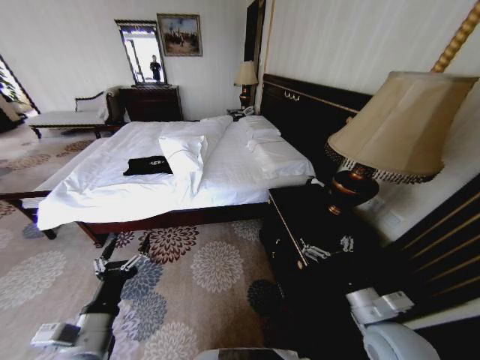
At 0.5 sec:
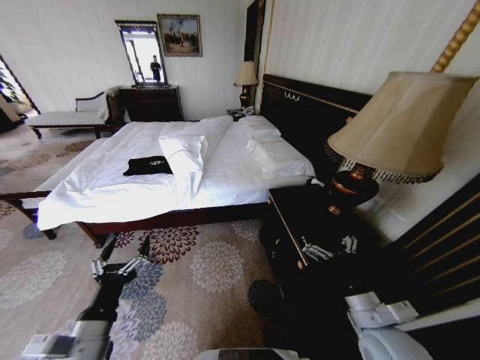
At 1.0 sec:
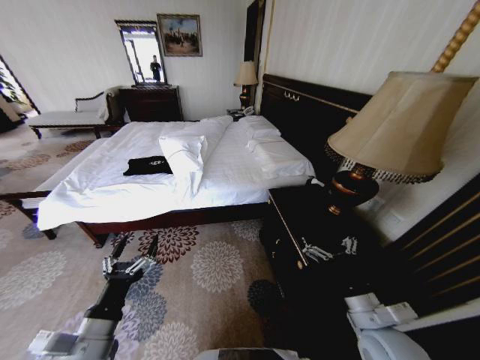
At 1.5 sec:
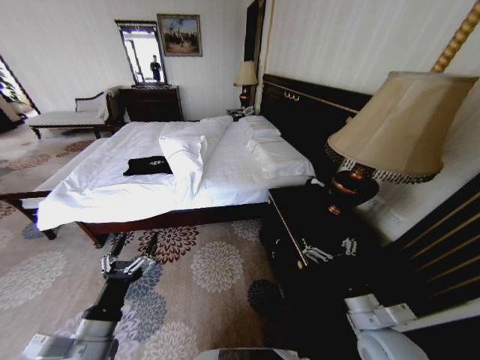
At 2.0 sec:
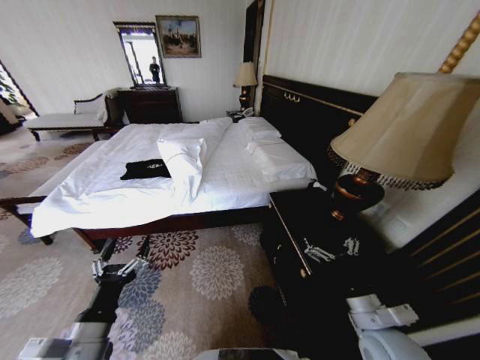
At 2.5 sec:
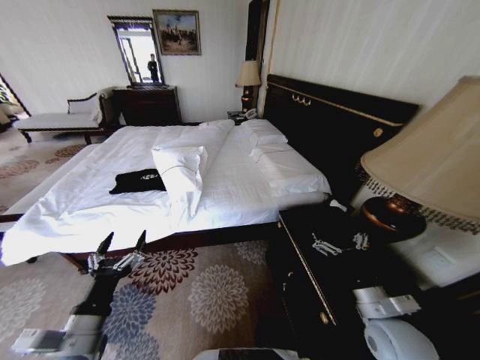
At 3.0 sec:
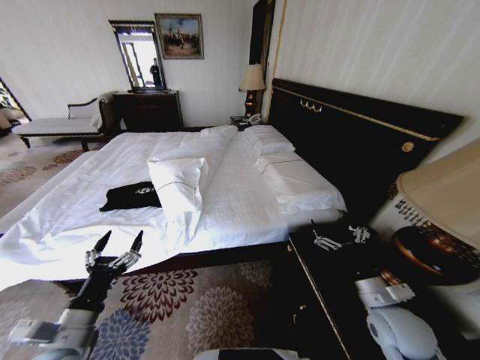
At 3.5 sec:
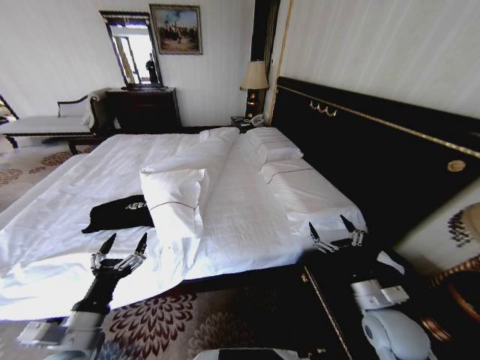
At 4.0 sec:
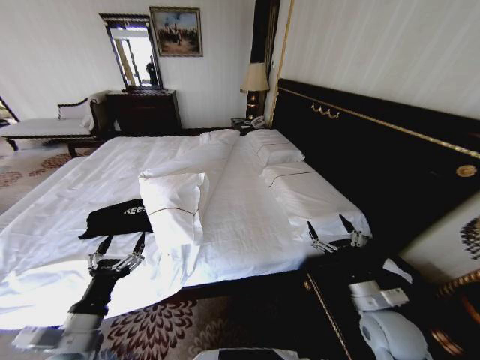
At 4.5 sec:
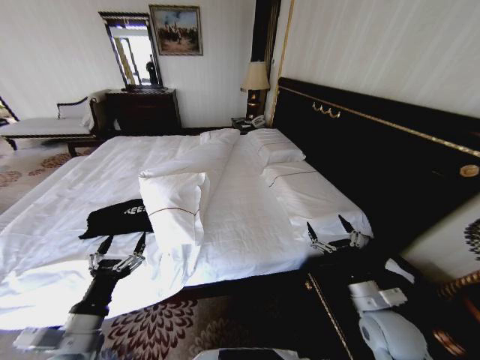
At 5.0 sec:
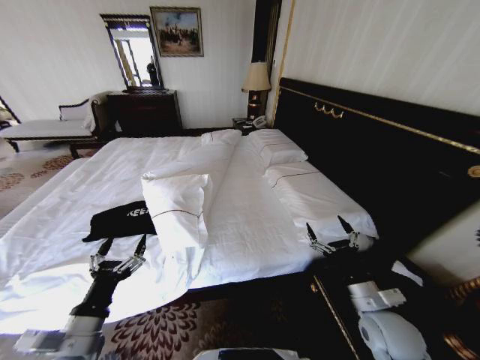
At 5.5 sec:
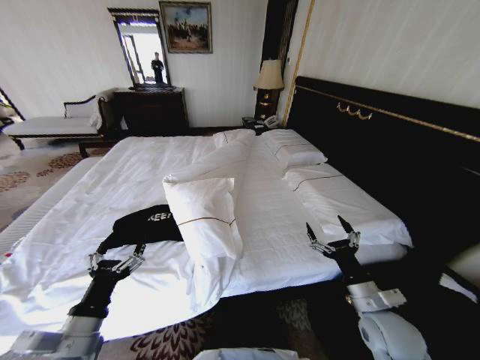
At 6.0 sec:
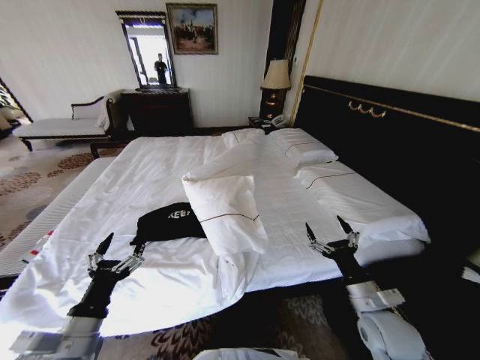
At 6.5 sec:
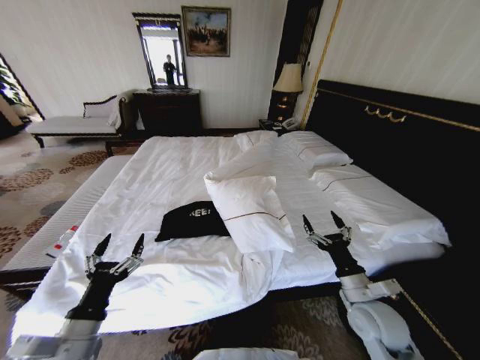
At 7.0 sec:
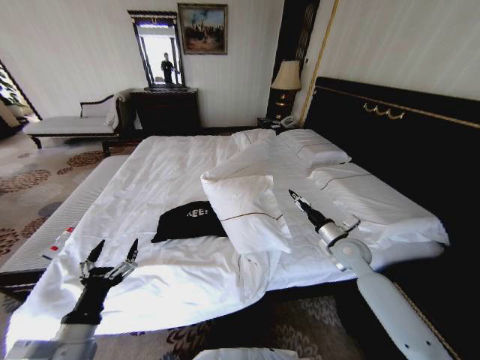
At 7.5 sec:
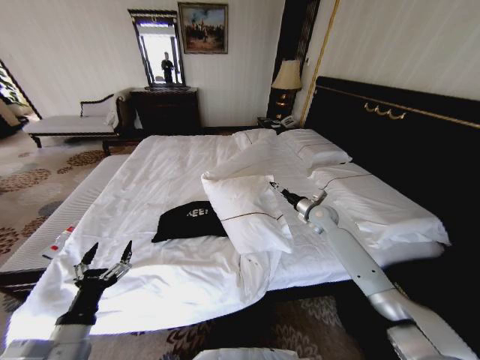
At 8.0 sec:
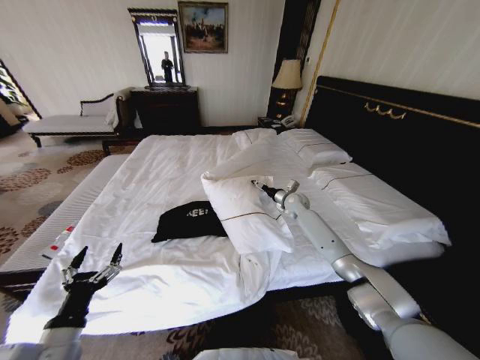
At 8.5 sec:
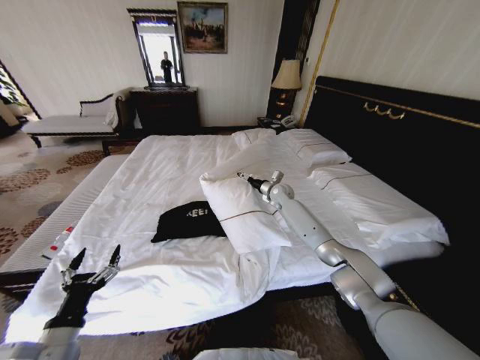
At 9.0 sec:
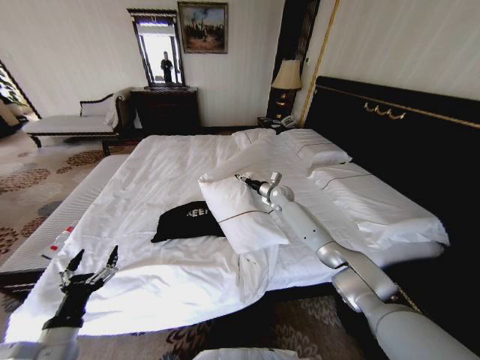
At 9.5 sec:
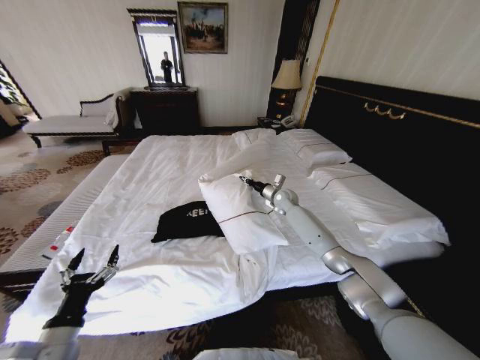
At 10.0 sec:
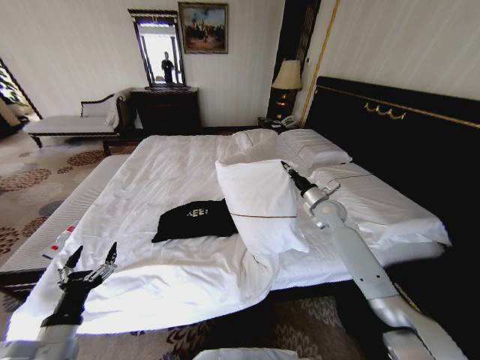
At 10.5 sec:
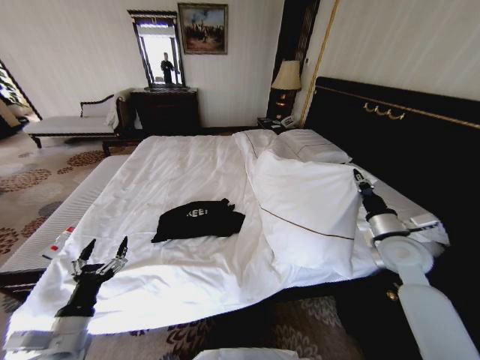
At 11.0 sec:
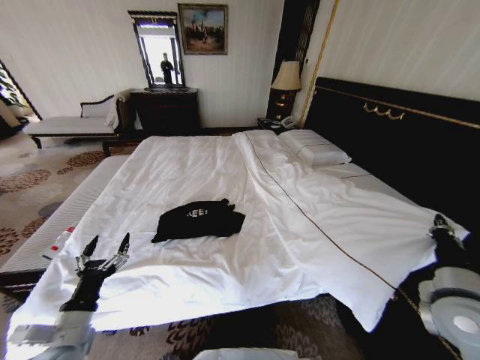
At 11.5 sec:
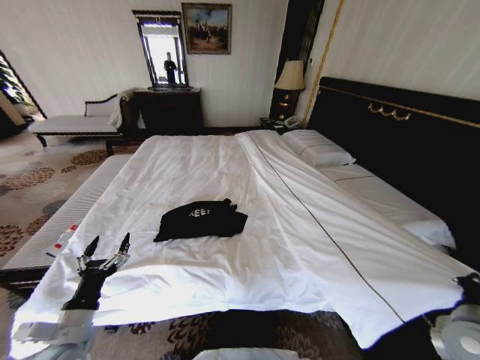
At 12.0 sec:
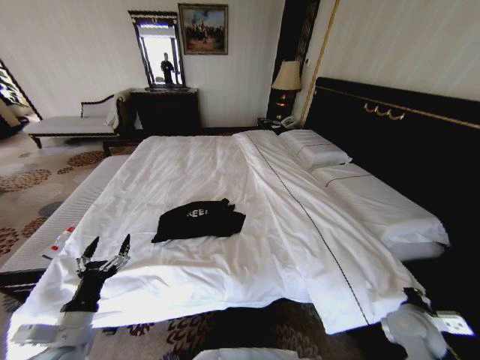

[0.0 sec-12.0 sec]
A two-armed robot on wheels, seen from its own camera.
Task of the whole recording: Fold the clothes on the bed.
2.0 sec to 4.0 sec: The right gripper ends up approximately 5 cm from where it was.
6.0 sec to 8.0 sec: The right gripper goes some 40 cm forward; the left gripper ends up about 5 cm from where it was.
8.0 sec to 10.0 sec: The right gripper travels backward and to the right by roughly 10 cm, and closes up.
10.0 sec to 12.0 sec: The right gripper travels backward and to the right by roughly 35 cm.

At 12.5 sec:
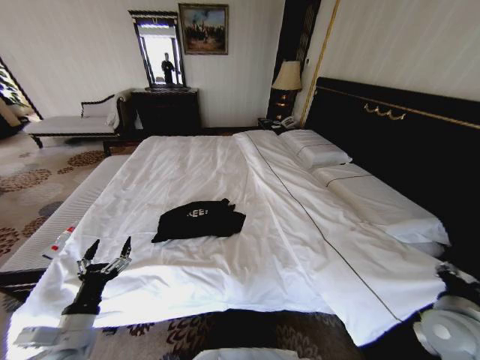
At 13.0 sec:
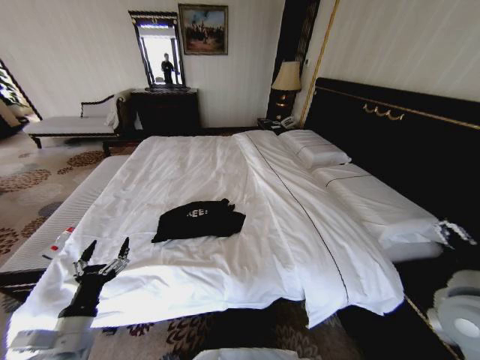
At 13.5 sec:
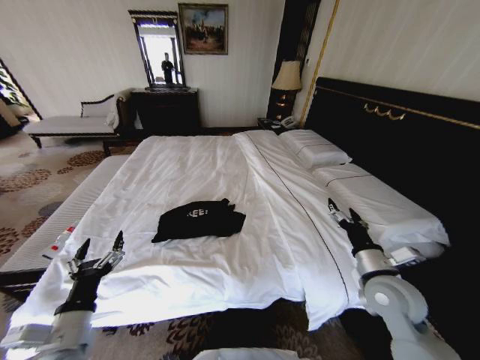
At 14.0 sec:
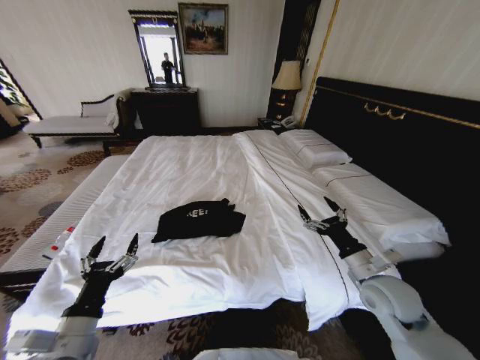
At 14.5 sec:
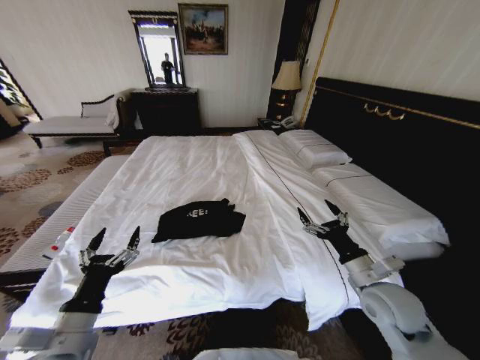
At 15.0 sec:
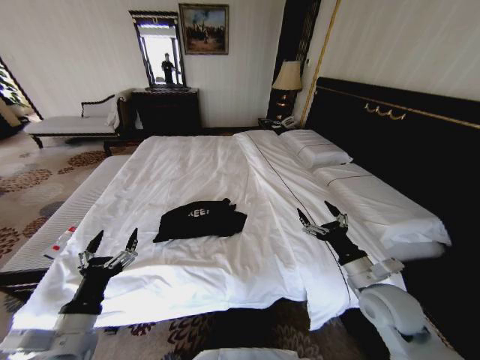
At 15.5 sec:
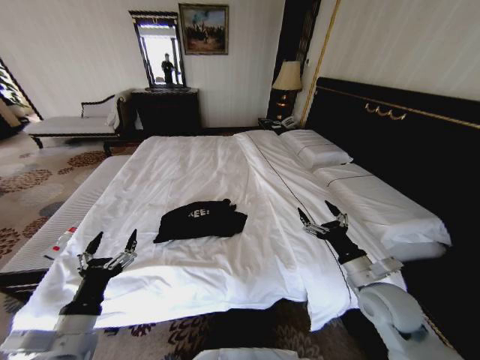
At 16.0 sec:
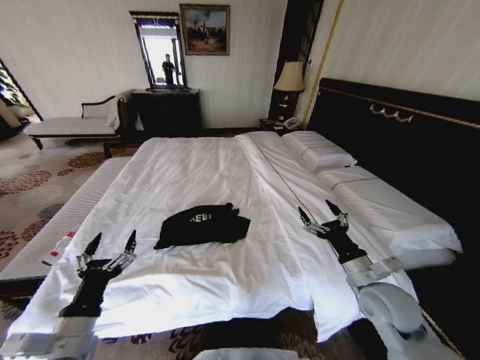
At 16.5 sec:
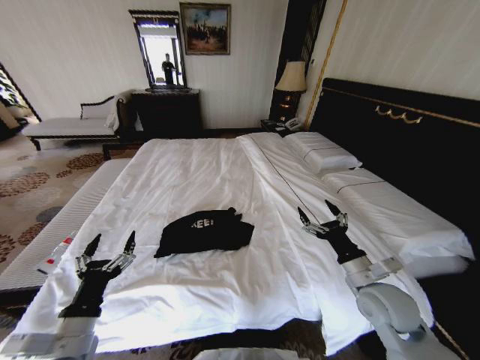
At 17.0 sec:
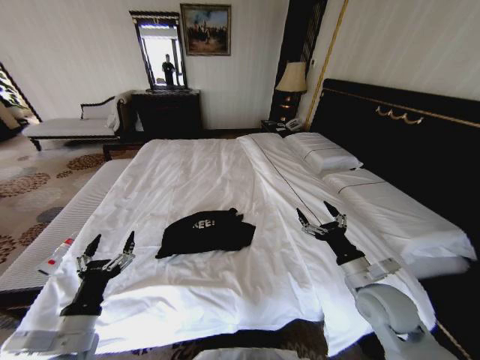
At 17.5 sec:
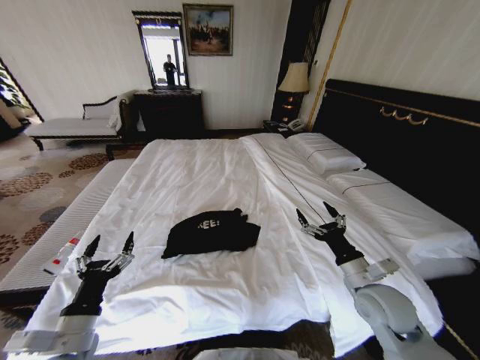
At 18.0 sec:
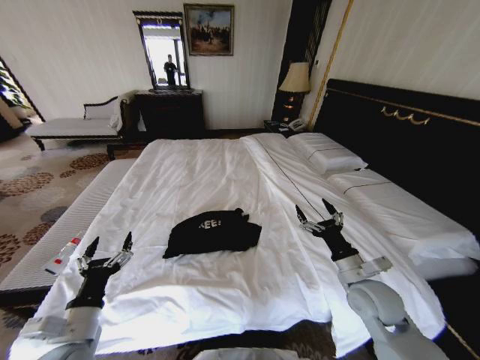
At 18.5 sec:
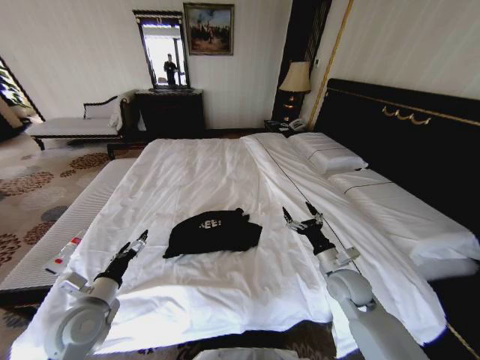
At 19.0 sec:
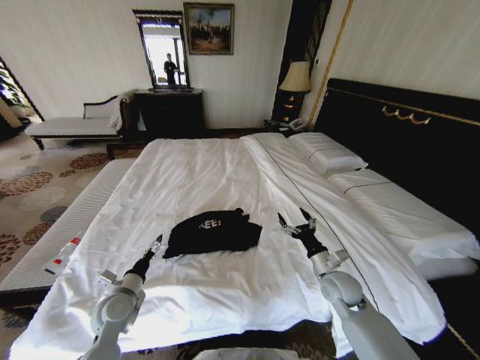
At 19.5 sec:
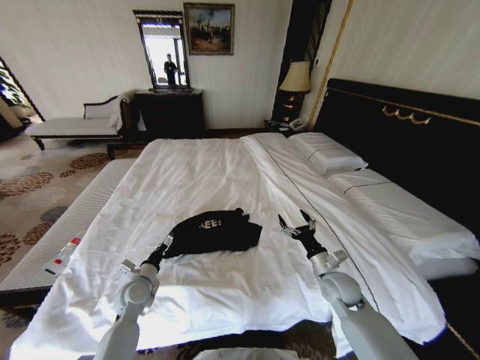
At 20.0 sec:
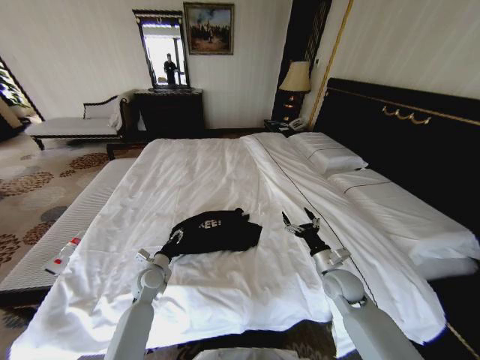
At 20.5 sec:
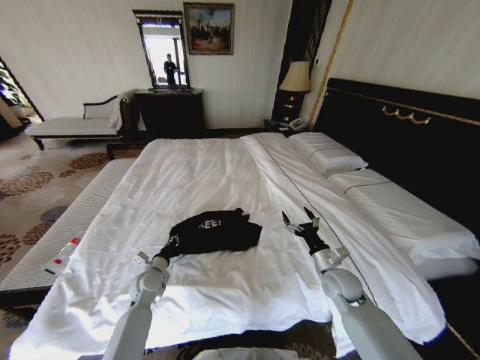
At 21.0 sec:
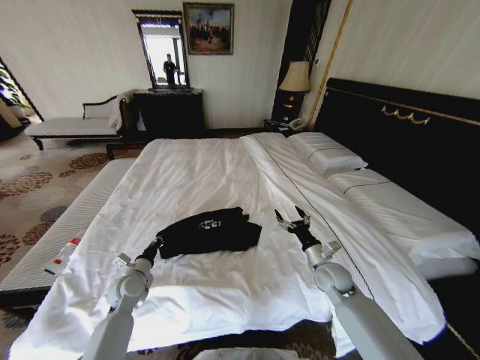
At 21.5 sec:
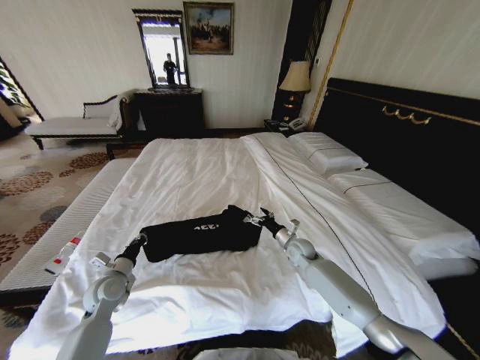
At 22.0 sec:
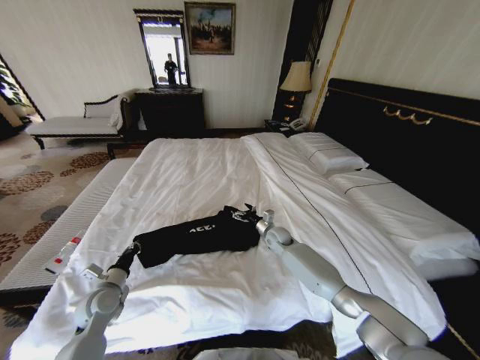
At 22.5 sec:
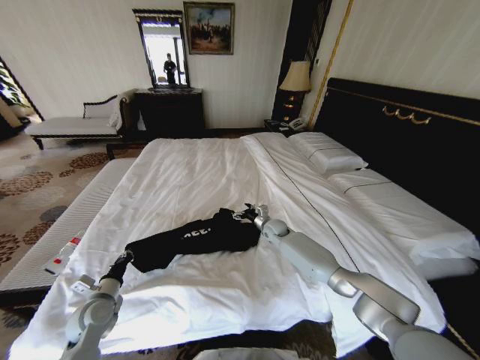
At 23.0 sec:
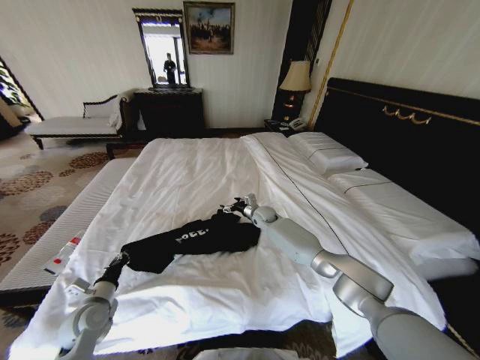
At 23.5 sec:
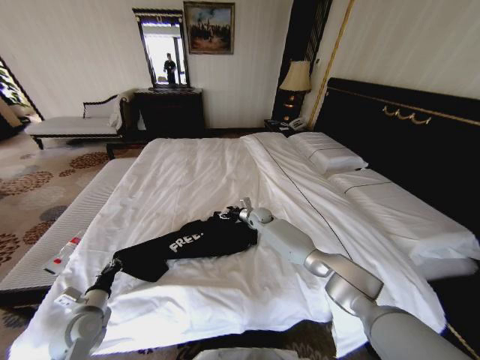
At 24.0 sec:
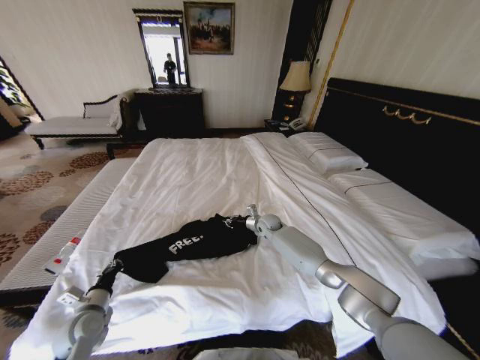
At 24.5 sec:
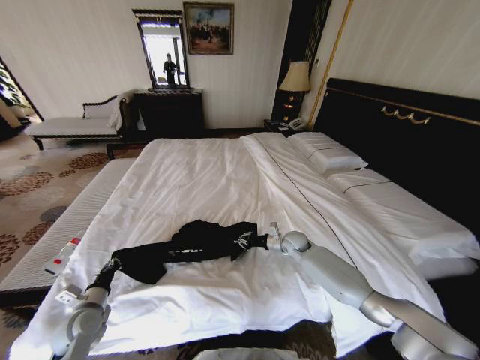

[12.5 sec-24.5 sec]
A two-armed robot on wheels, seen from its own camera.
Task of the whole recording: Fold the clothes on the bed.
12.5 sec to 14.5 sec: The left gripper travels upward by approximately 5 cm. Meanwhile the right gripper heads to the left and forward, covering about 10 cm, and opens.
16.5 sec to 18.5 sec: The right gripper shifts some 10 cm downward and forward, while the left gripper is displaced forward by some 10 cm.
18.5 sec to 20.5 sec: The left gripper is displaced forward, downward and to the right by about 20 cm, and closes.
20.5 sec to 22.5 sec: The left gripper goes roughly 15 cm to the left and backward. The right gripper is displaced forward and to the left by approximately 25 cm.
22.5 sec to 24.5 sec: The right gripper heads to the right and backward, covering approximately 10 cm, and closes up.

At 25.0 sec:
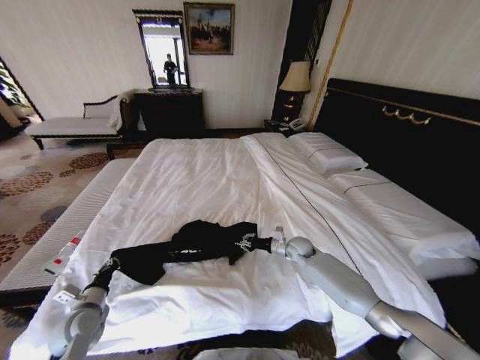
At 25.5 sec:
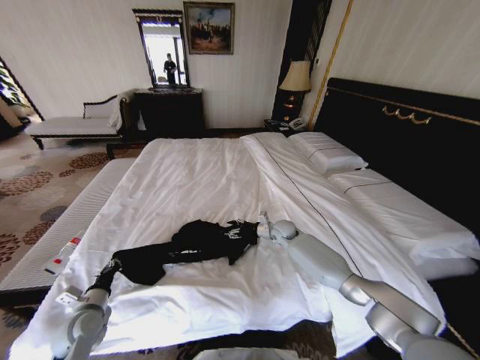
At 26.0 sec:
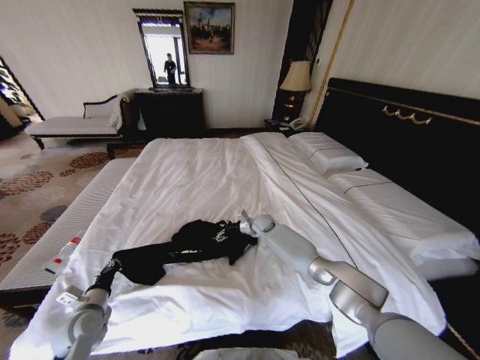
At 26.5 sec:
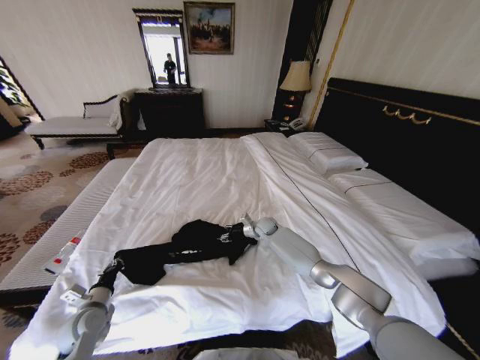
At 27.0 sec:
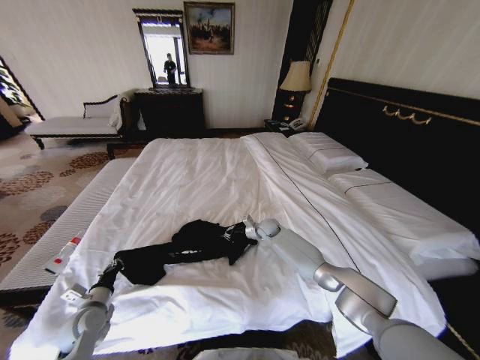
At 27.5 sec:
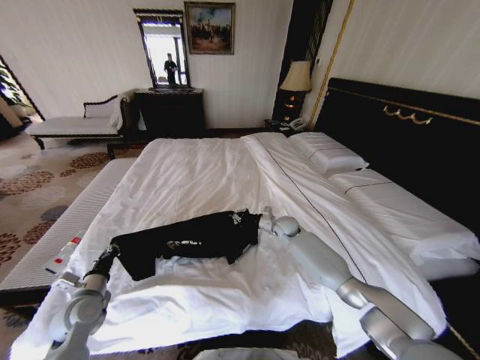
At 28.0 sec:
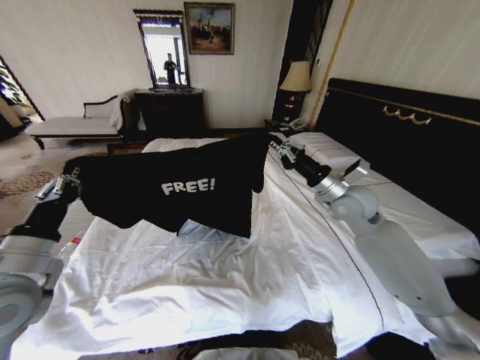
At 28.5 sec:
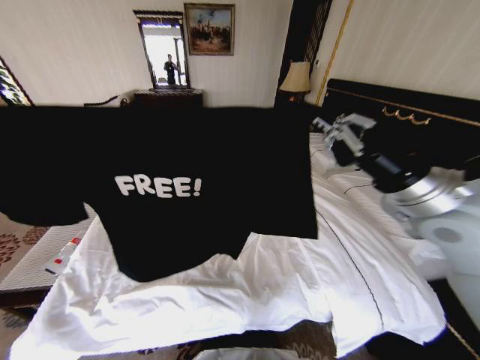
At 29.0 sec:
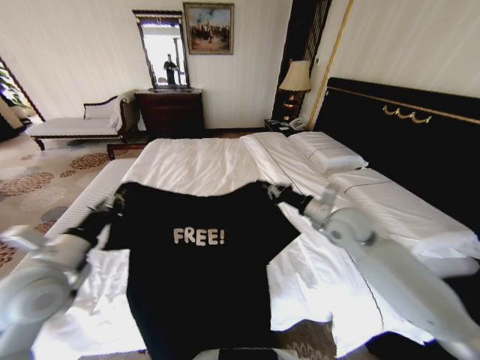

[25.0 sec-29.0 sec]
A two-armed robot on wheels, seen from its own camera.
Task of the whole recording: Fold the clothes on the bed.
25.0 sec to 27.0 sec: The right gripper is displaced forward and to the left by roughly 15 cm, and opens, then closes once more.
27.0 sec to 29.0 sec: The right gripper goes roughly 30 cm upward, backward and to the right, while the left gripper travels upward by some 25 cm.
